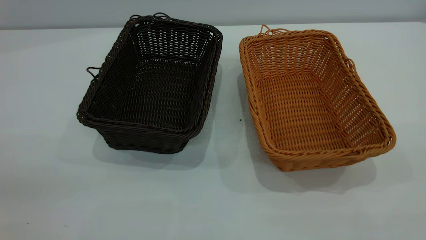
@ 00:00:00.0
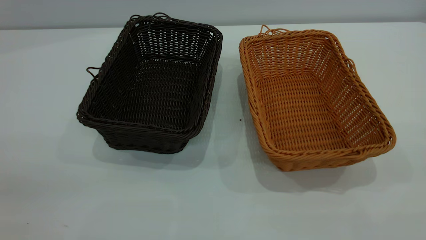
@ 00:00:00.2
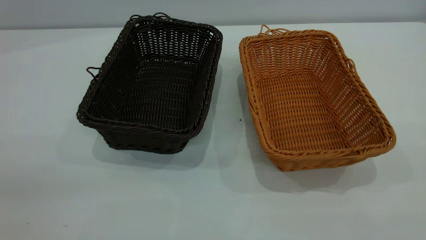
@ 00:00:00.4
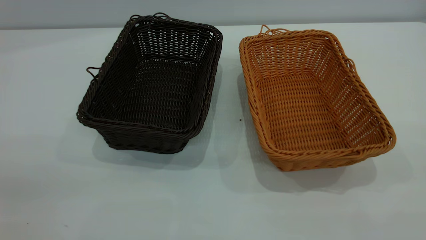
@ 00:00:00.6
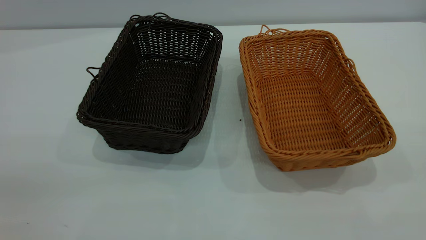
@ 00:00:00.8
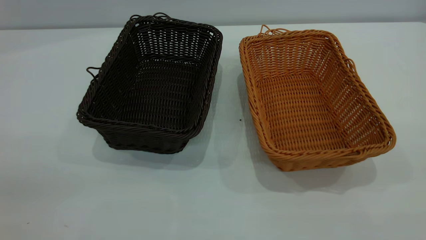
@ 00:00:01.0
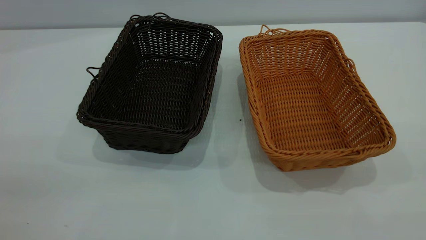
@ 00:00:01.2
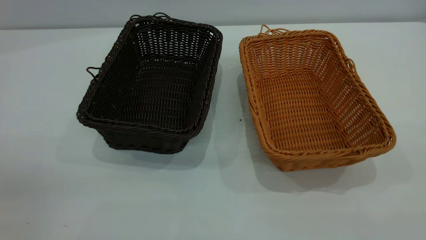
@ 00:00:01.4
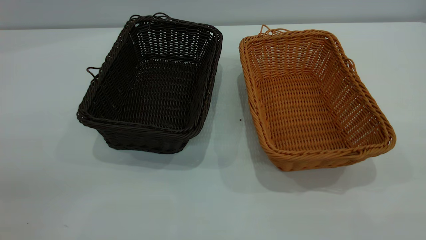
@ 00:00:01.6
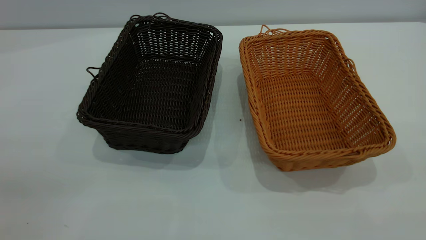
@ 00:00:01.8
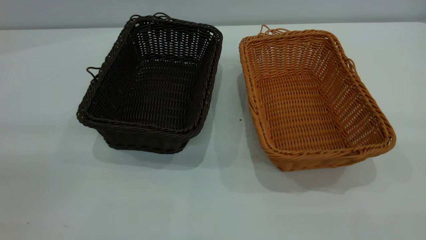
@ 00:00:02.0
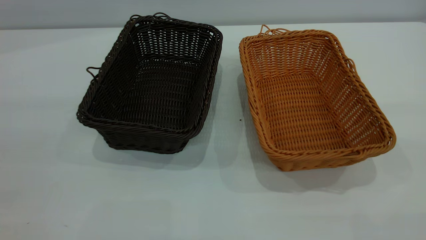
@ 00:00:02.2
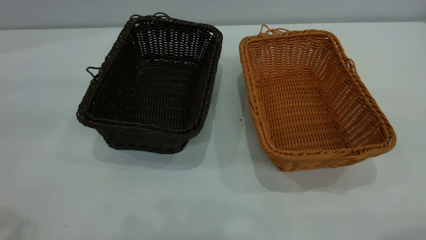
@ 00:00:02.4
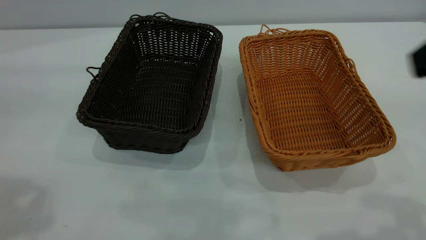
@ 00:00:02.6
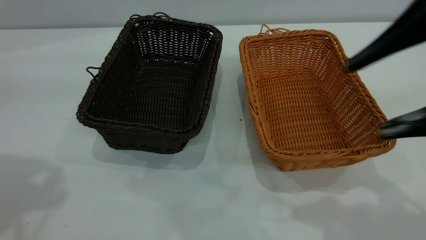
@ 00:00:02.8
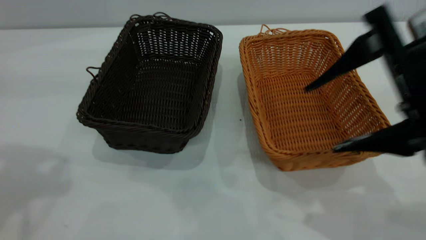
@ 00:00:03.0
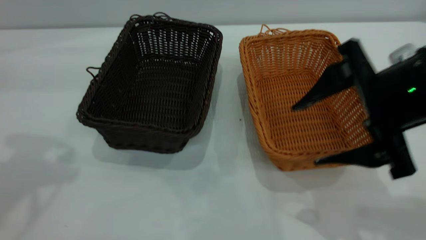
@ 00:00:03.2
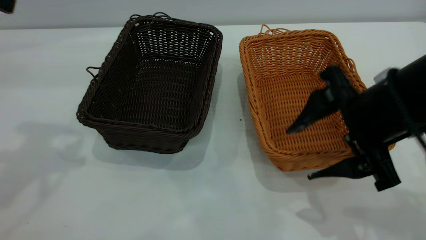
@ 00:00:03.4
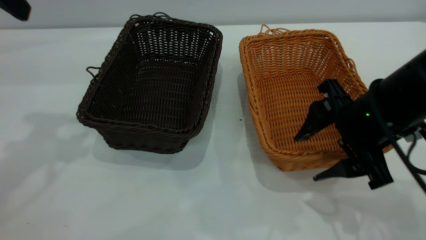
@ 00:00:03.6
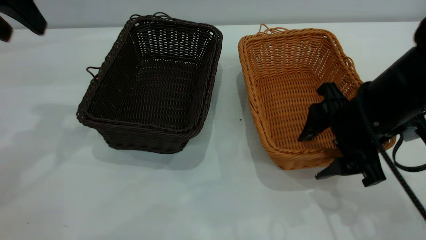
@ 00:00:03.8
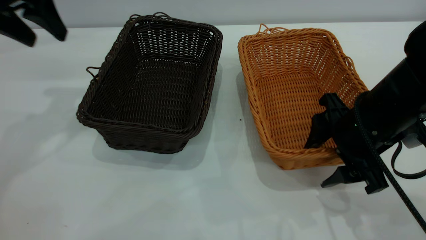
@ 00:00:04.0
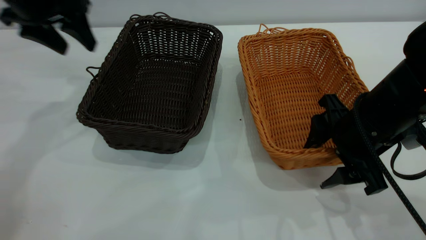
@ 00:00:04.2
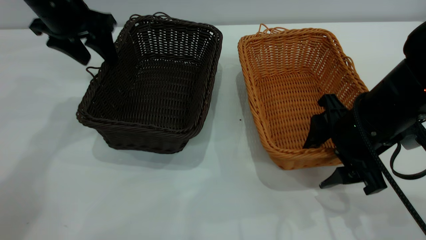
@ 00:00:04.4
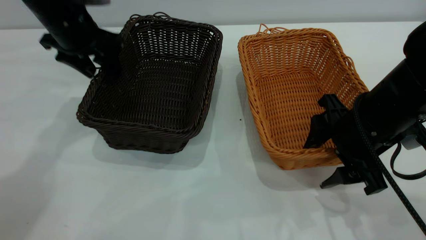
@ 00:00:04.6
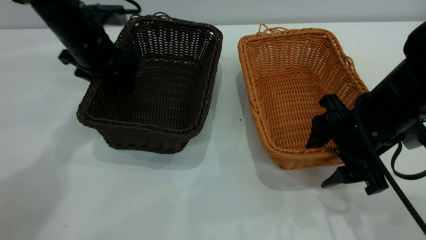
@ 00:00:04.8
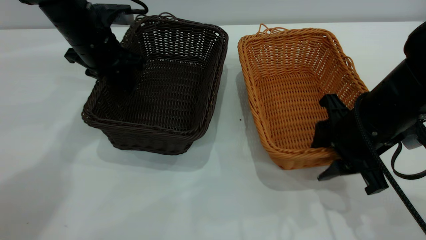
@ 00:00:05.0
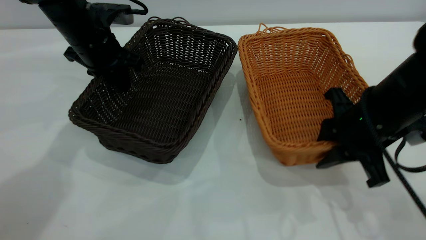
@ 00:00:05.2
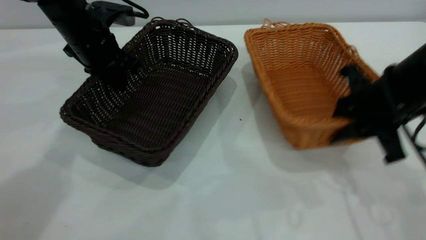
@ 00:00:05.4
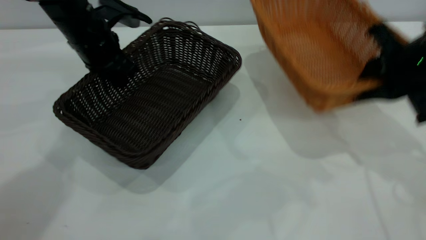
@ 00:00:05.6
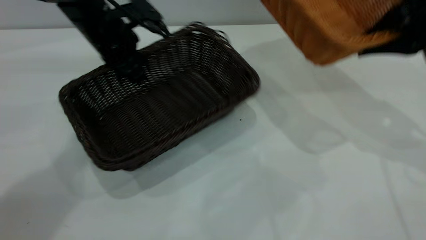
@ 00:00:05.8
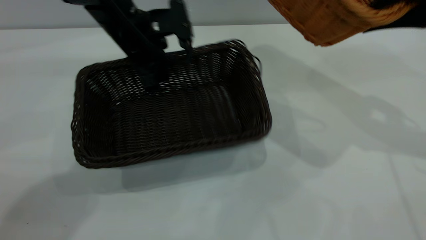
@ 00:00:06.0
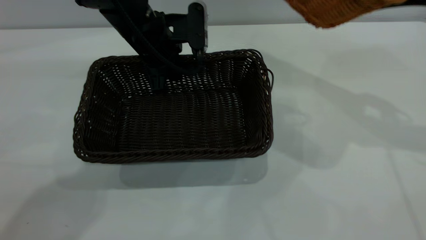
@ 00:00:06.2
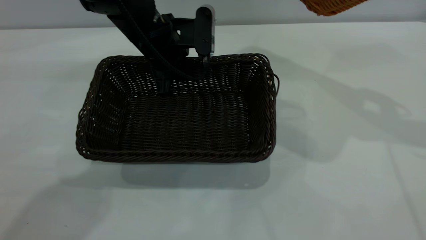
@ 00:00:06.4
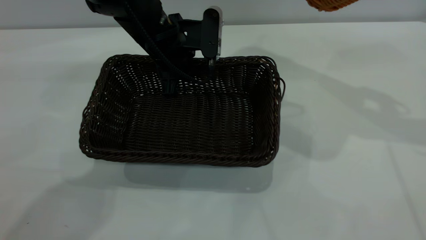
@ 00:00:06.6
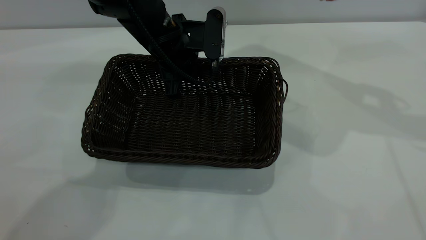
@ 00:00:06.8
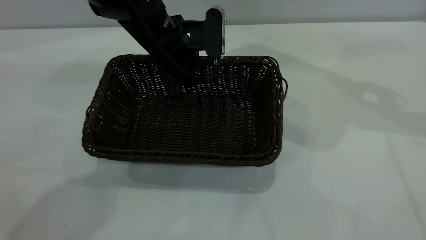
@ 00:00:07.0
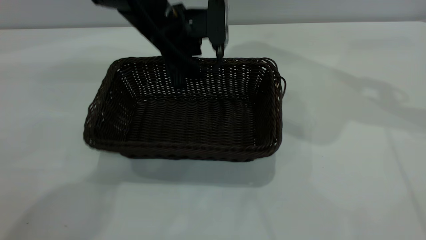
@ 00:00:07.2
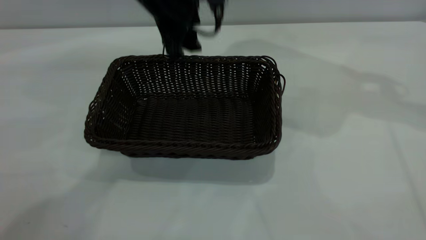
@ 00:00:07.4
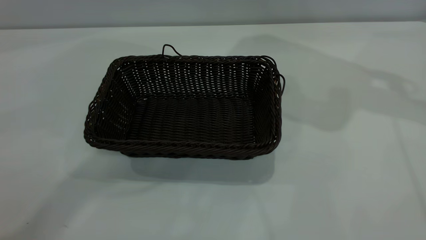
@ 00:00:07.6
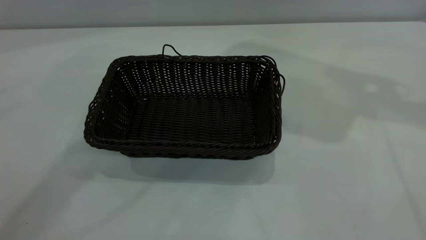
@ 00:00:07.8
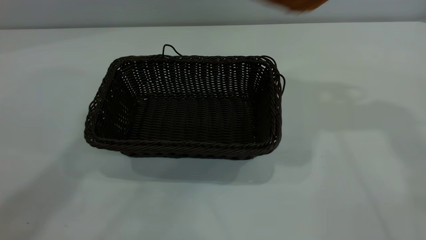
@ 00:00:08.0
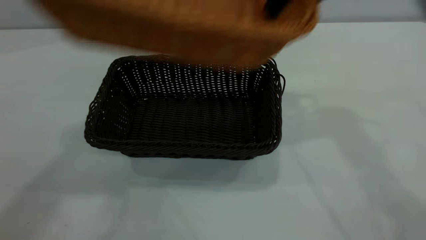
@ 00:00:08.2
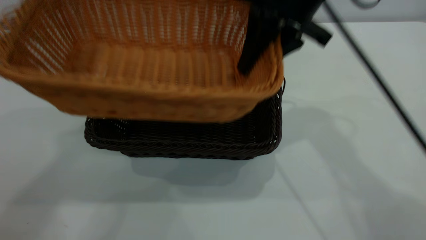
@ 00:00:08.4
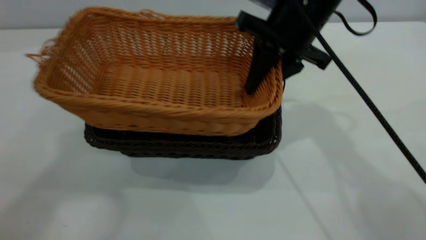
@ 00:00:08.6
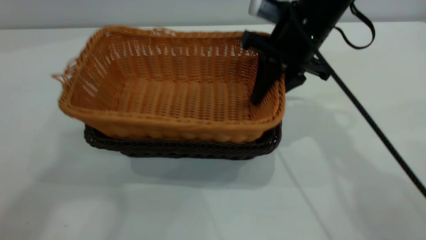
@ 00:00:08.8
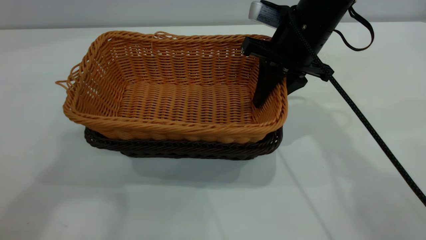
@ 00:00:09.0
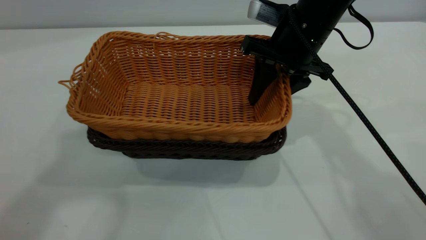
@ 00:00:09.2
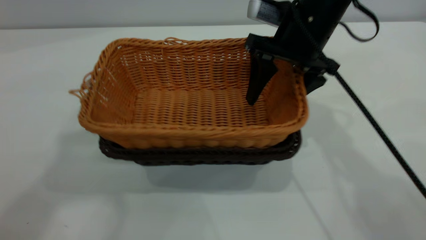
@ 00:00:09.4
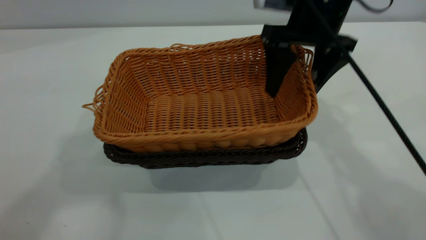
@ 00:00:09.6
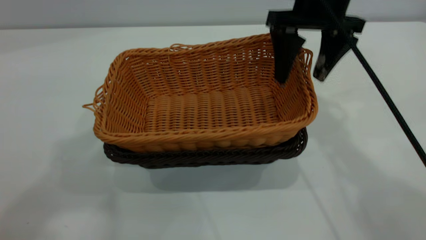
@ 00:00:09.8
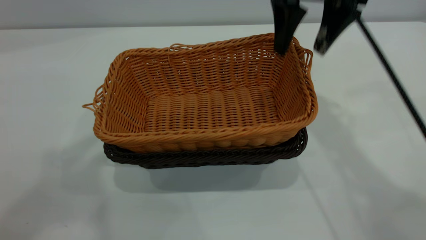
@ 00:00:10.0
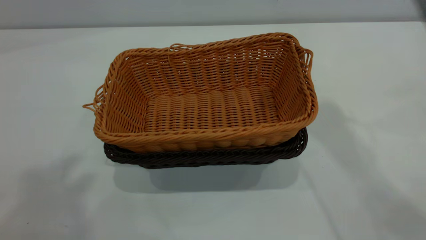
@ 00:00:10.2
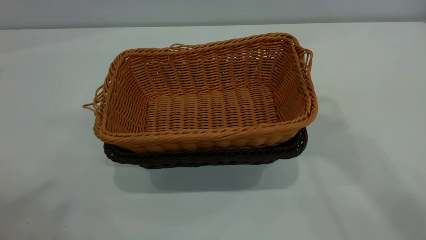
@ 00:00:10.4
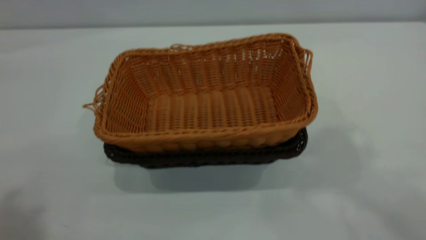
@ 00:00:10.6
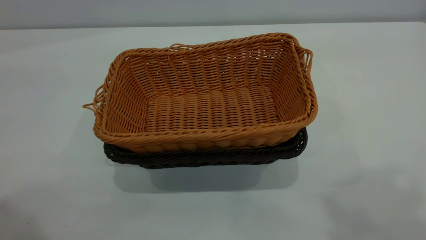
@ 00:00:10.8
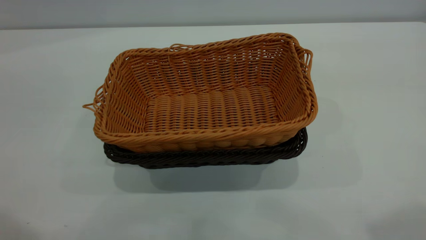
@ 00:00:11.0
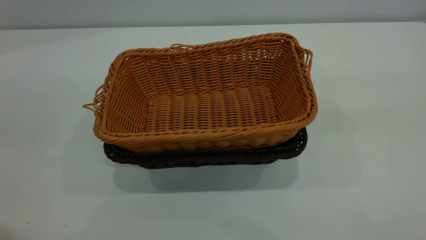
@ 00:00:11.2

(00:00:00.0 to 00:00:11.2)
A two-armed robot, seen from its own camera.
Task of the whole recording: the left gripper grasp the black basket and place it in the center of the table, the right gripper grasp the brown basket and place it inside the black one.
Step, 00:00:00.0 - 00:00:05.6: Pick up the light basket with the right gripper.
Step, 00:00:05.8 - 00:00:07.4: Move the dark basket to the center of view.
Step, 00:00:07.6 - 00:00:10.0: Place the light basket on the dark basket.
00:00:00.0 - 00:00:01.6: Both grippers stay about where they are.
00:00:01.6 - 00:00:03.2: The right gripper shifts roughly 30 cm forward, downward and to the left.
00:00:03.2 - 00:00:04.8: The left gripper heads downward, forward and to the right, covering approximately 30 cm, while the right gripper is displaced downward by approximately 10 cm.
00:00:04.8 - 00:00:06.4: The right gripper goes about 25 cm upward, to the right and forward, and closes up; the left gripper travels to the right by about 10 cm, and closes its fingers.
00:00:06.4 - 00:00:08.0: The left gripper is displaced upward by some 40 cm, and opens up. The right gripper moves to the left, about 10 cm.
00:00:08.0 - 00:00:09.6: The right gripper goes roughly 15 cm downward and to the left, and opens.
00:00:09.6 - 00:00:11.2: The left gripper shifts some 20 cm downward and backward; the right gripper goes roughly 40 cm backward, upward and to the right.
